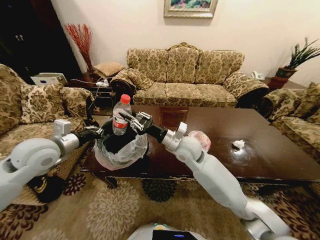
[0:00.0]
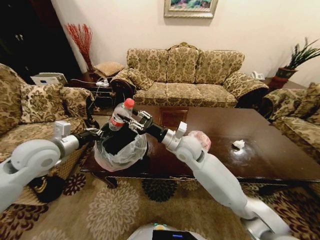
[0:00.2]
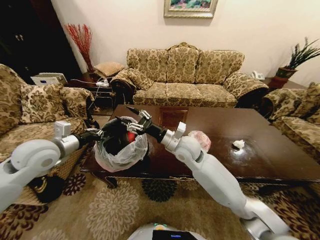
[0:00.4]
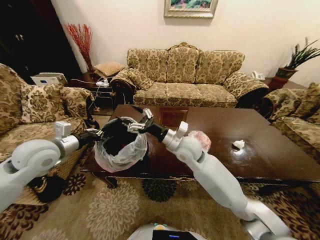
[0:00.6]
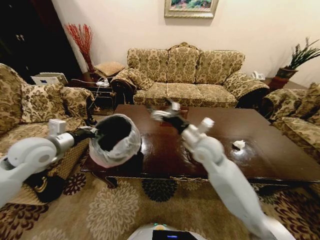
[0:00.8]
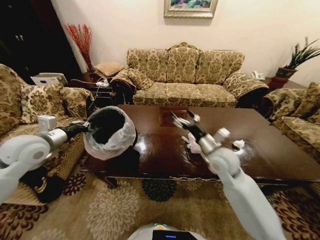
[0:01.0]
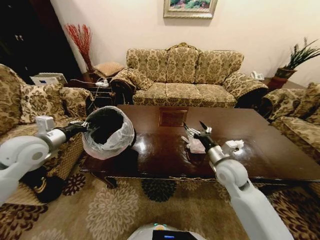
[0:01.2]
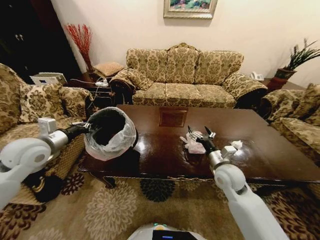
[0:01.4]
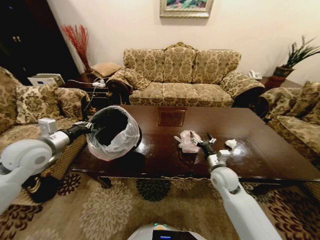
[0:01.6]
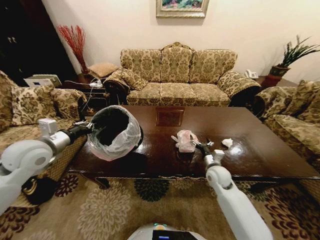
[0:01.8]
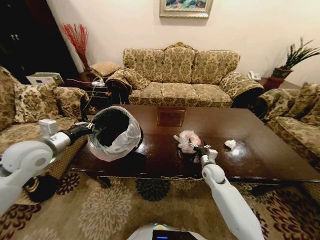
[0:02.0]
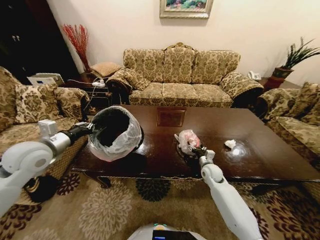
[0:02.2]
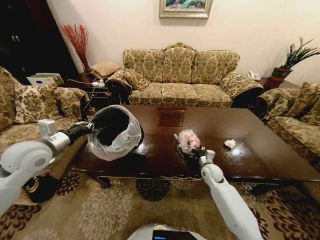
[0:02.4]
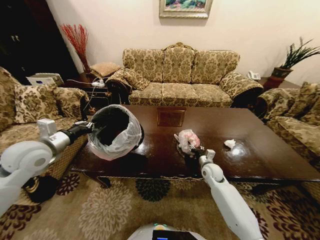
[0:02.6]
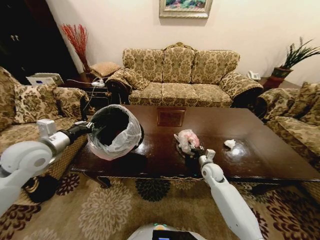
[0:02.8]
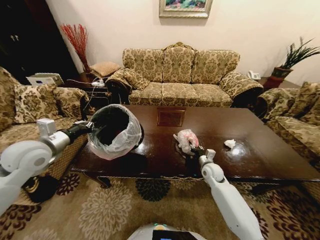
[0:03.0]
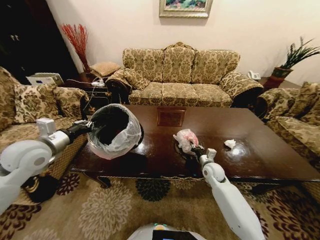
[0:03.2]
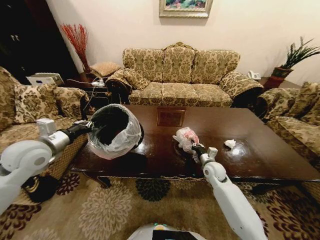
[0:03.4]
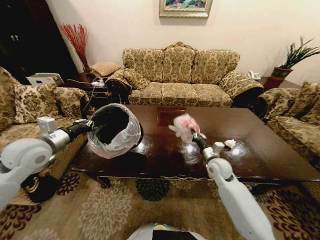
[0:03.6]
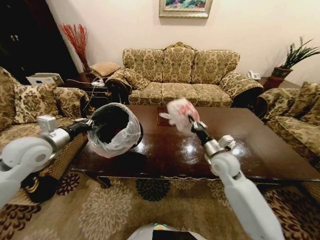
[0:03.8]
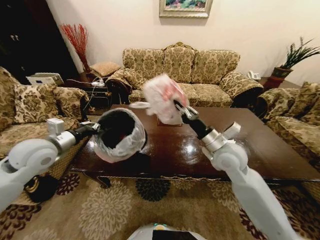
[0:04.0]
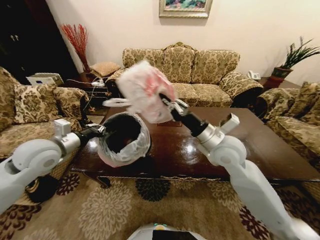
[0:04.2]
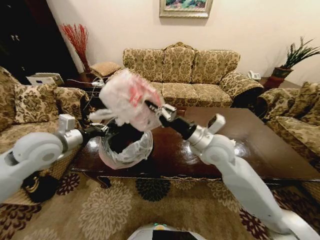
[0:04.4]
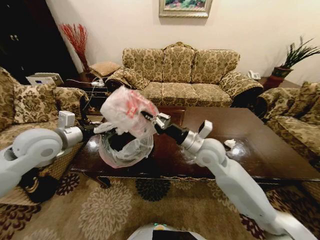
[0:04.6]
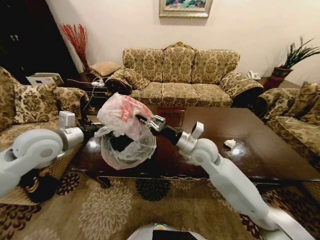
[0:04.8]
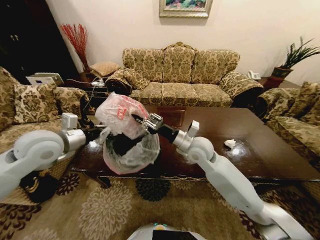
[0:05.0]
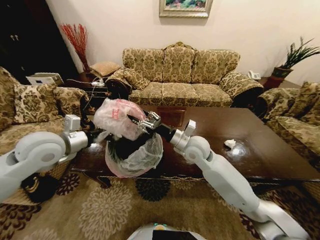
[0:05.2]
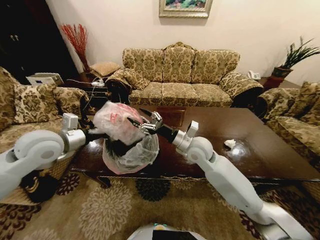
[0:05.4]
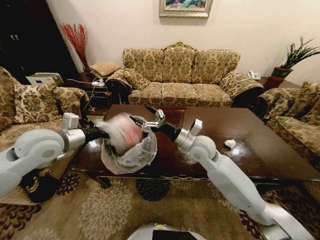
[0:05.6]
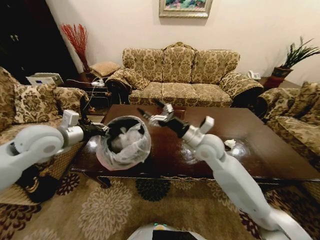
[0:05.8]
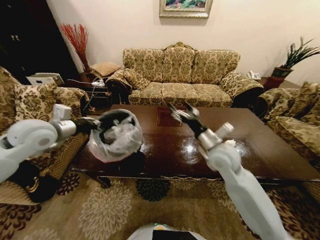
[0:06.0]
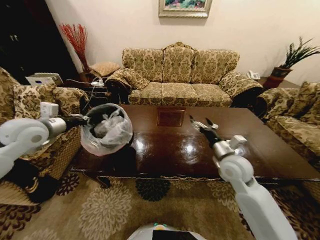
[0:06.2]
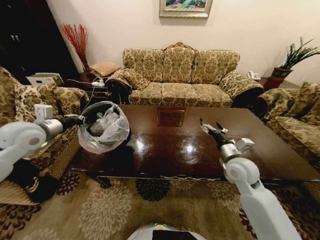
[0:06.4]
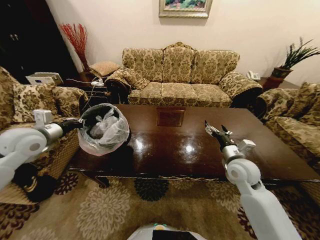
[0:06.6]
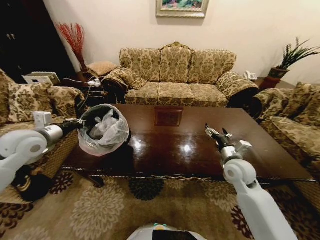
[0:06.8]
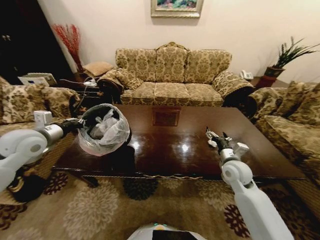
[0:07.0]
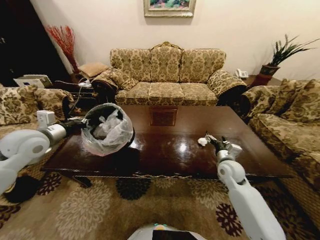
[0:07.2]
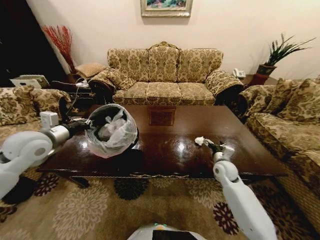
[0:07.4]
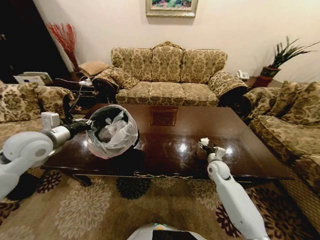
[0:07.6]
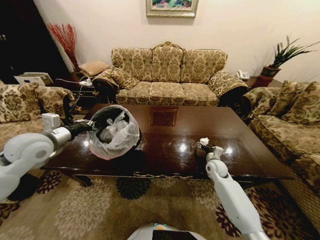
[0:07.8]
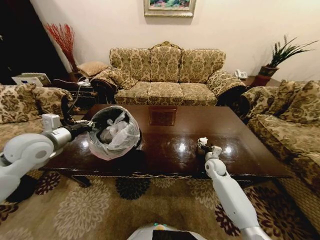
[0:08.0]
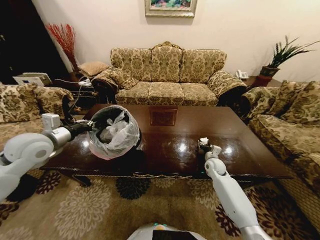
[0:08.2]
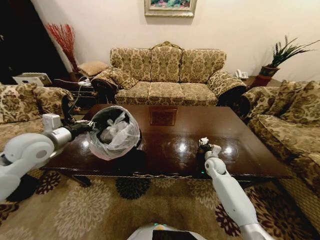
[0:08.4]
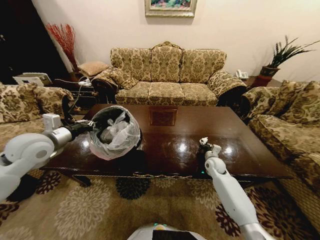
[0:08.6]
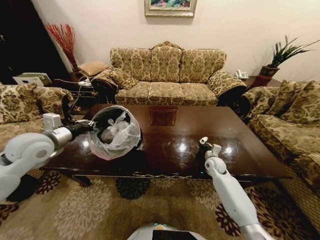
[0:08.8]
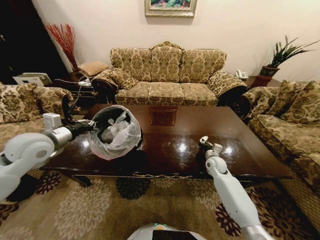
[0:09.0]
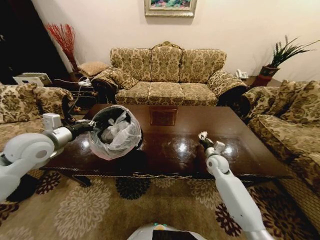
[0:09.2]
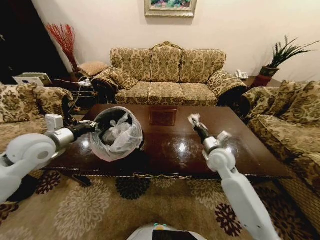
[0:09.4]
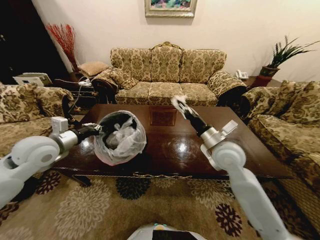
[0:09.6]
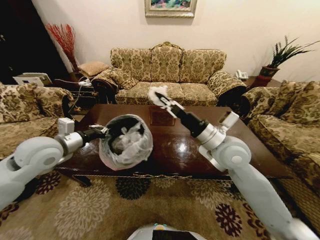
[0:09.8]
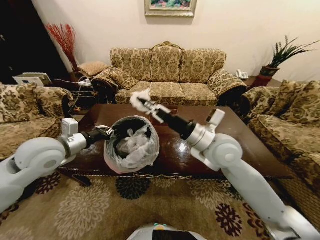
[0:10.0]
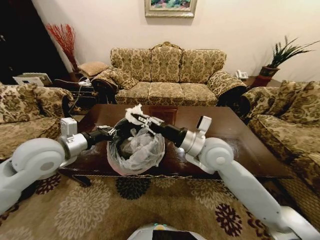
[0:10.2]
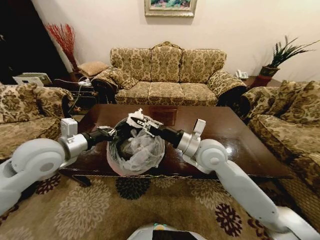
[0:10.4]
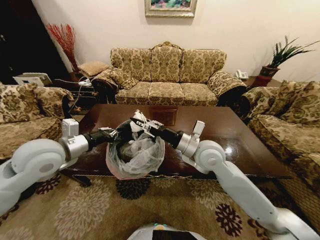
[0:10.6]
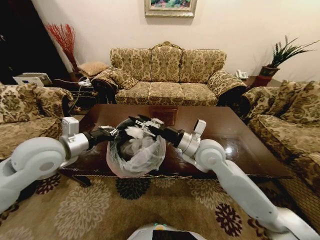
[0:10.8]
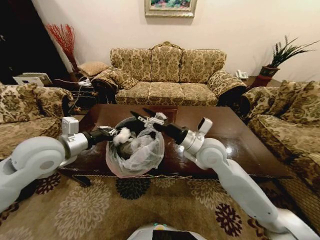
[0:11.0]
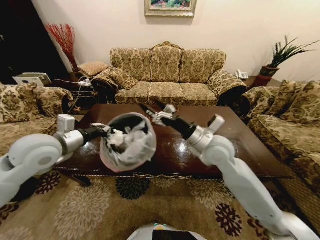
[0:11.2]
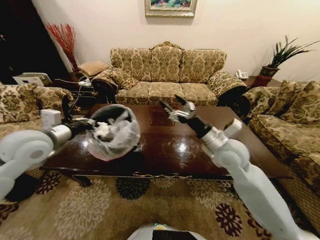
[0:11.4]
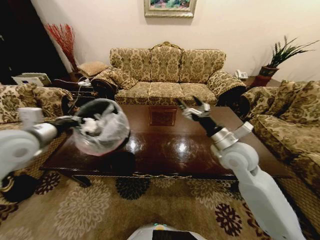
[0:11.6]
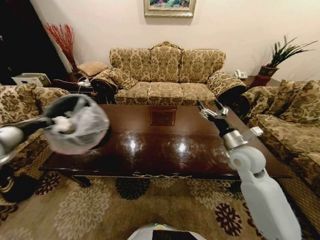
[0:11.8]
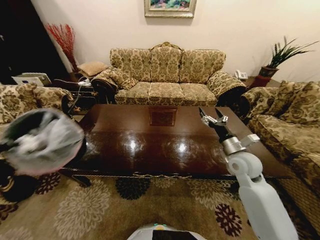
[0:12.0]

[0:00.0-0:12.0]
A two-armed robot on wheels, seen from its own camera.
Task of the whole recording: Move to the front of the table and place the trash on the table into the trash bin.
0:00.0 to 0:01.6: The right gripper moves to the right and downward, roughly 20 cm, and opens.
0:01.6 to 0:03.0: The right gripper shifts some 10 cm downward and forward, and closes.
0:03.0 to 0:04.4: The right gripper moves upward, roughly 25 cm, while the left gripper moves about 5 cm.
0:04.4 to 0:06.0: The right gripper ends up approximately 5 cm from where it was, and opens up.
0:06.0 to 0:07.6: The right gripper shifts some 25 cm downward and to the right.
0:07.6 to 0:09.0: The right gripper closes its fingers.
0:09.0 to 0:10.4: The left gripper is displaced to the right by about 5 cm. The right gripper travels upward, to the left and backward by about 30 cm.
0:10.4 to 0:12.0: The left gripper is displaced to the left and backward by about 20 cm. The right gripper shifts roughly 20 cm to the right and downward, and opens up.

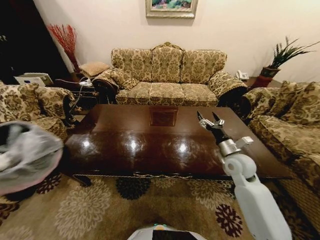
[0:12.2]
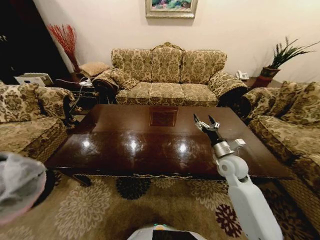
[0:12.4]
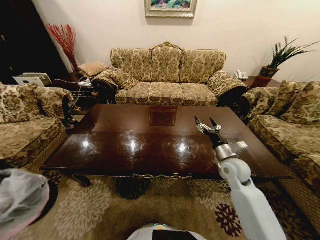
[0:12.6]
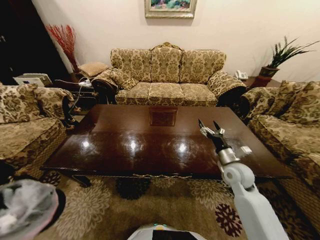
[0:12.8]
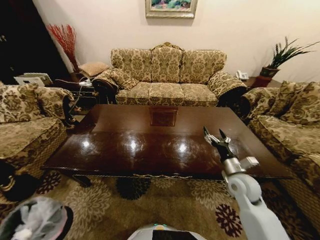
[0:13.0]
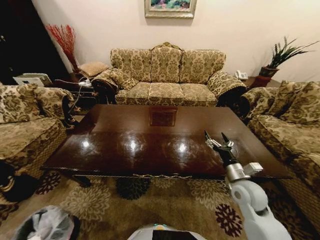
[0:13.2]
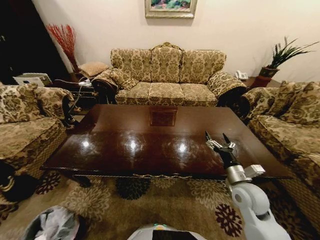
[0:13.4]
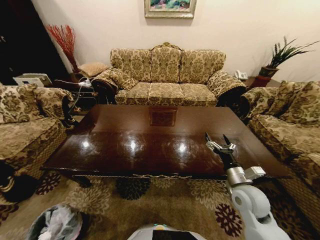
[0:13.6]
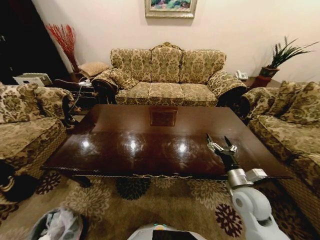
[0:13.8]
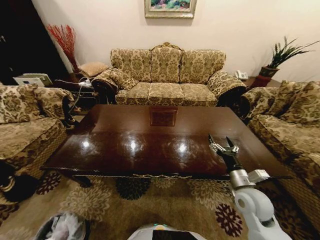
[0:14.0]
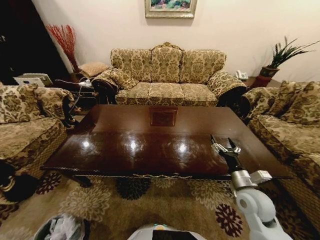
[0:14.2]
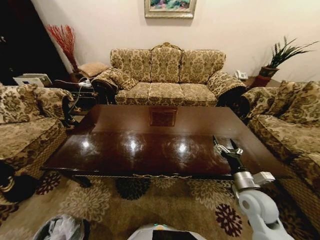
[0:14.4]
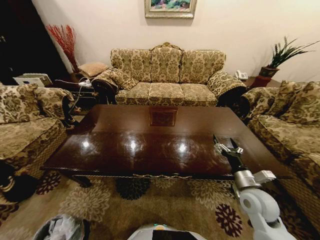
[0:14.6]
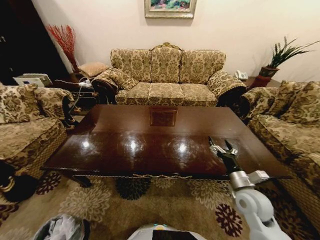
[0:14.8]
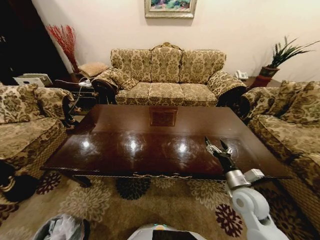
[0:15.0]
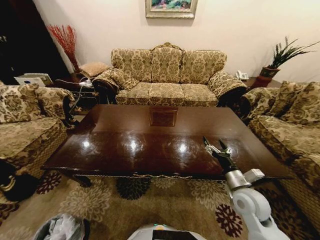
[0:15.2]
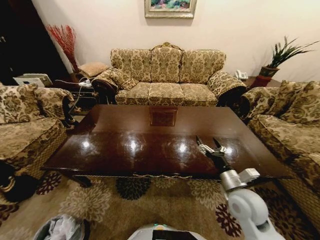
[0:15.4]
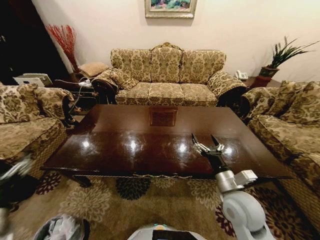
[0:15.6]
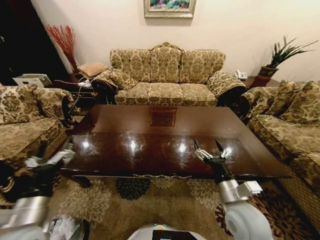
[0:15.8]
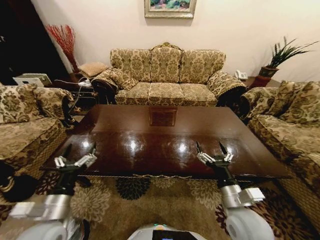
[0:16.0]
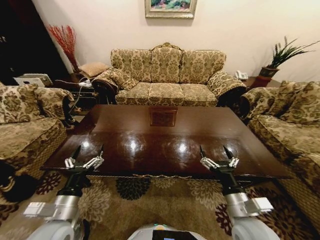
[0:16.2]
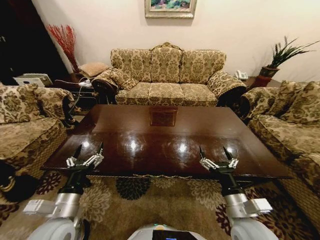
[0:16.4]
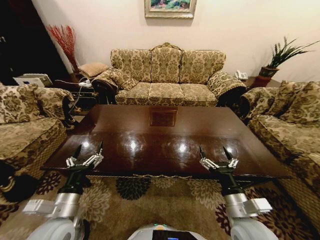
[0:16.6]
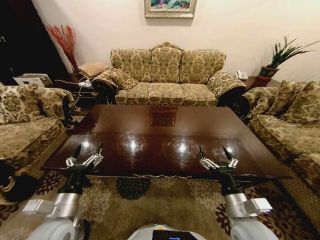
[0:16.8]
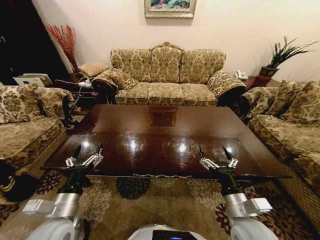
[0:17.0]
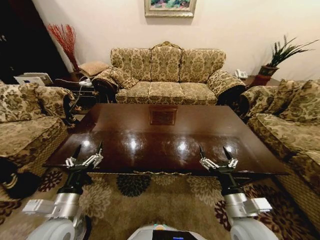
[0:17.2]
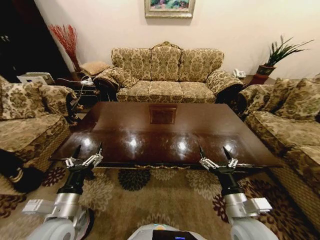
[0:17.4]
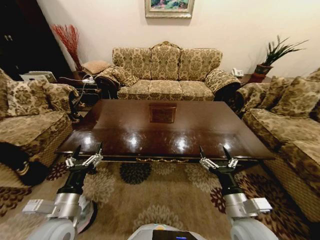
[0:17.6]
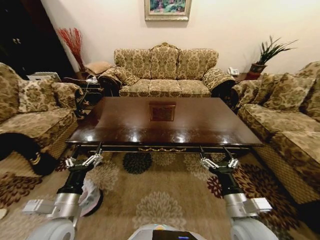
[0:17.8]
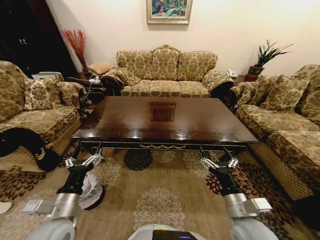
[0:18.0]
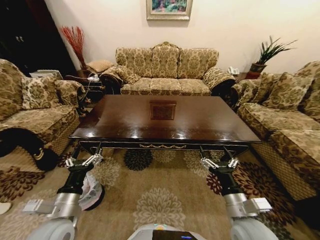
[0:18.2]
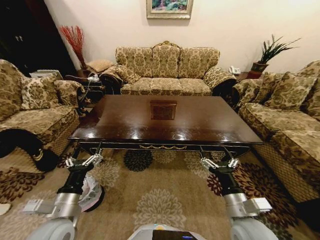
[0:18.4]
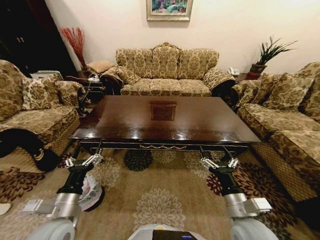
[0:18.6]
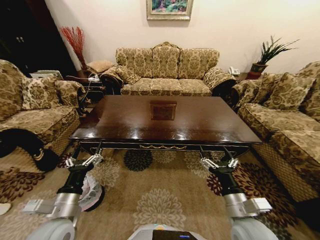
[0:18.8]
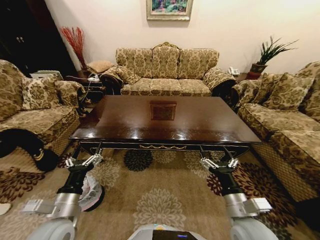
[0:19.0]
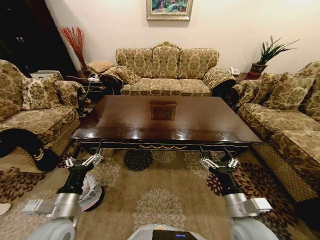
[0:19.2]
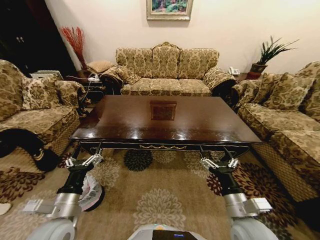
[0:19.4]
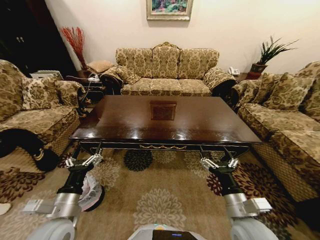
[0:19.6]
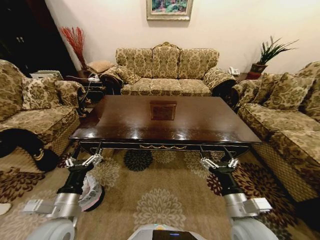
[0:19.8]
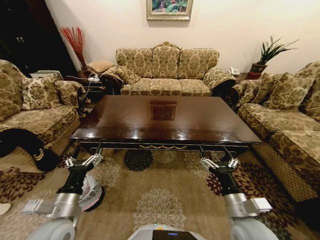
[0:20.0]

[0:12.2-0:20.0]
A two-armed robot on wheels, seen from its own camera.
Task of the whole recording: Move to the front of the table and place the trash on the table into the trash bin.
0:12.2 to 0:13.8: The right gripper moves backward, some 10 cm; the left gripper goes approximately 50 cm downward.
0:13.8 to 0:15.4: The left gripper heads upward, covering some 25 cm, and opens its fingers.
0:15.4 to 0:16.8: The right gripper travels backward by roughly 10 cm, while the left gripper moves to the right, forward and upward, approximately 25 cm.
0:18.4 to 0:20.0: The two grippers keep their place.
